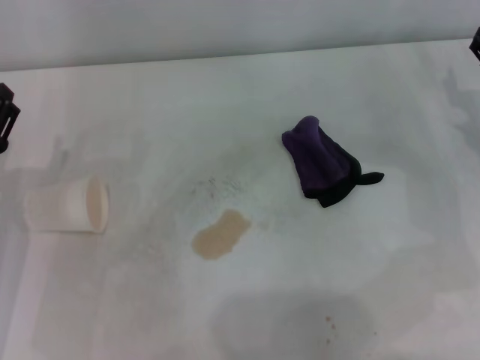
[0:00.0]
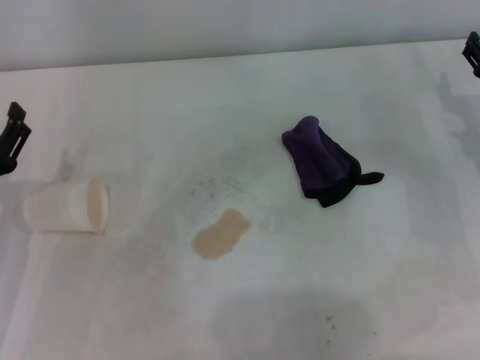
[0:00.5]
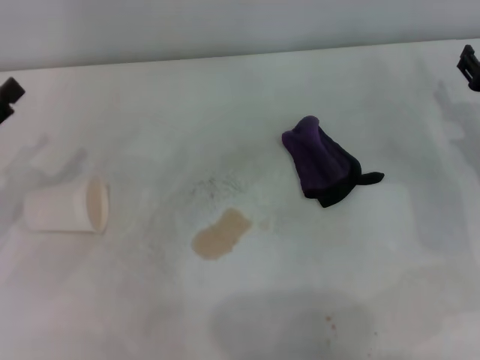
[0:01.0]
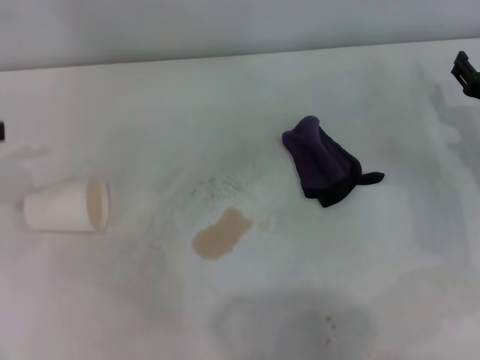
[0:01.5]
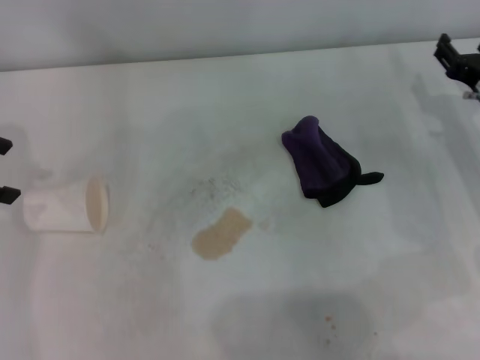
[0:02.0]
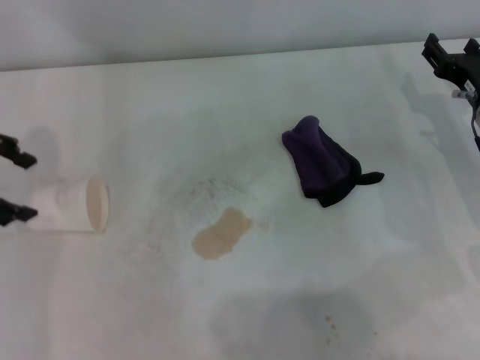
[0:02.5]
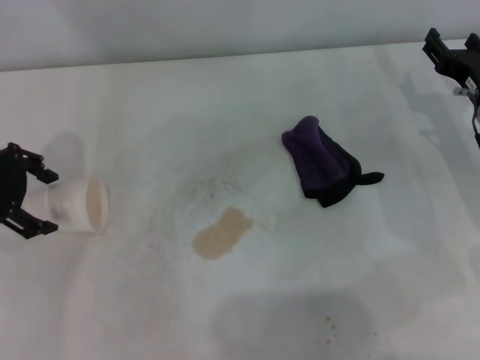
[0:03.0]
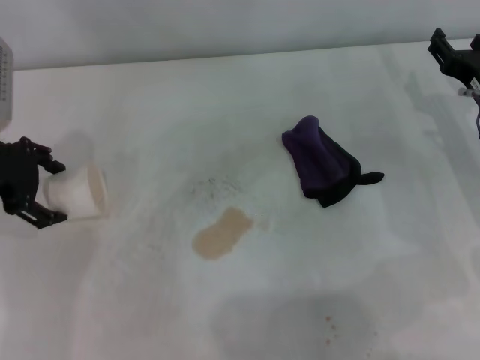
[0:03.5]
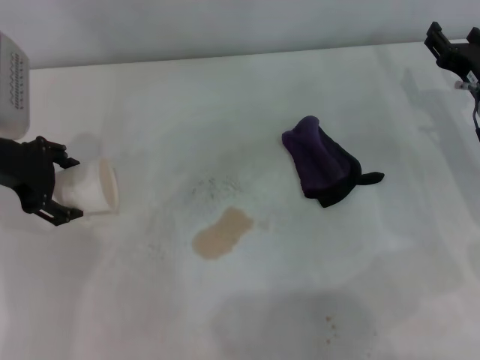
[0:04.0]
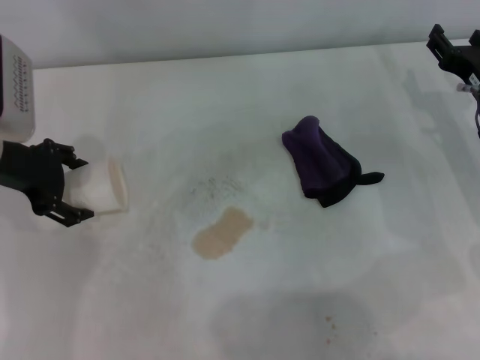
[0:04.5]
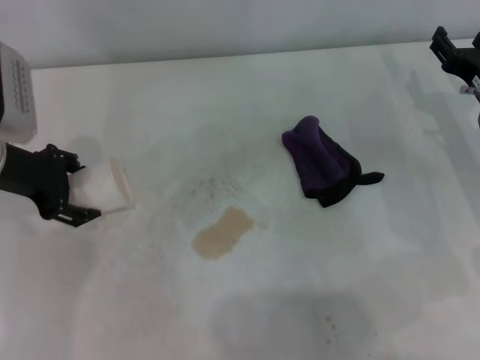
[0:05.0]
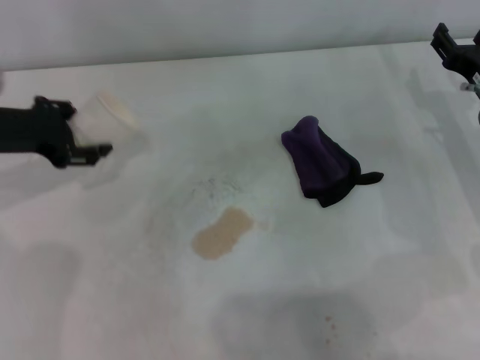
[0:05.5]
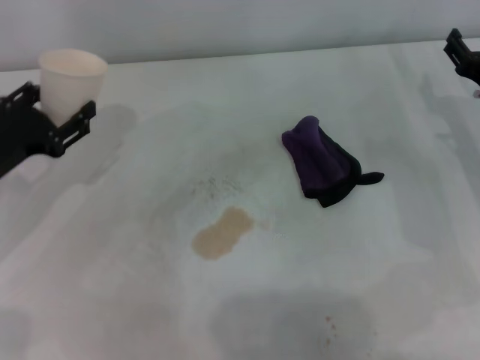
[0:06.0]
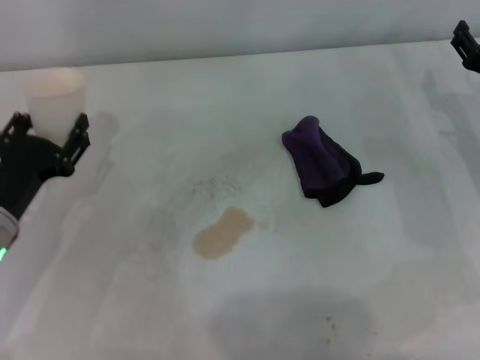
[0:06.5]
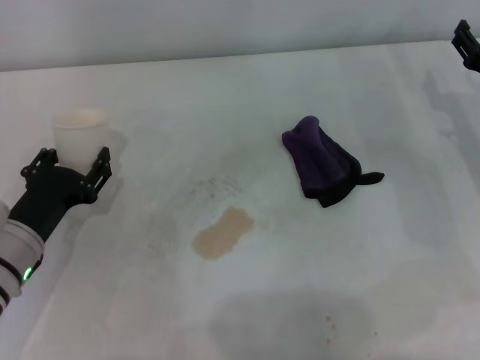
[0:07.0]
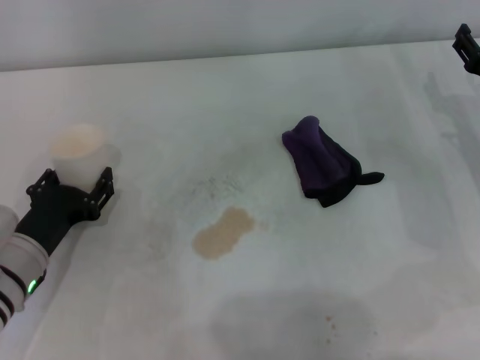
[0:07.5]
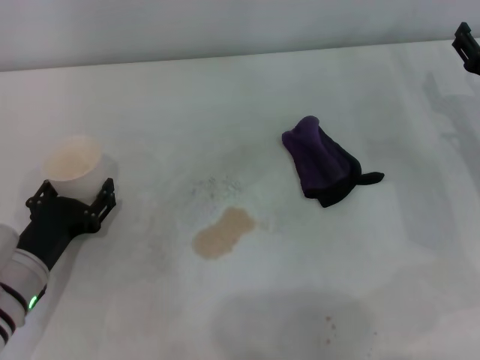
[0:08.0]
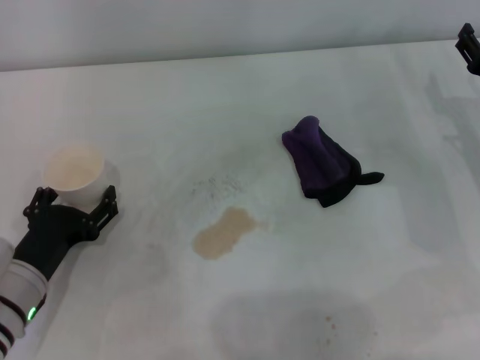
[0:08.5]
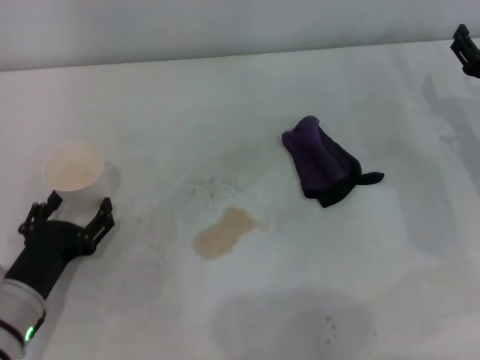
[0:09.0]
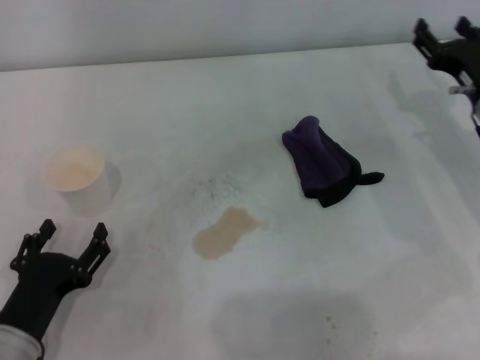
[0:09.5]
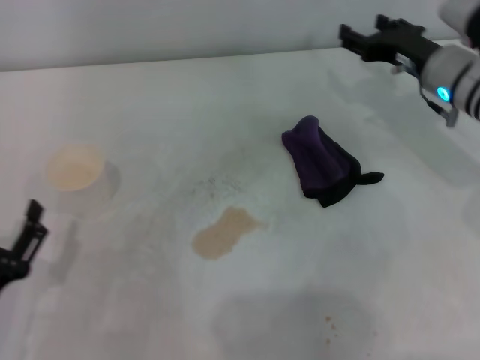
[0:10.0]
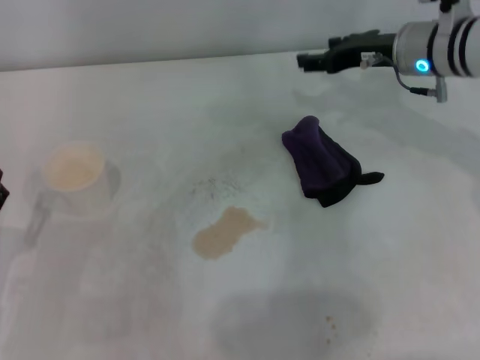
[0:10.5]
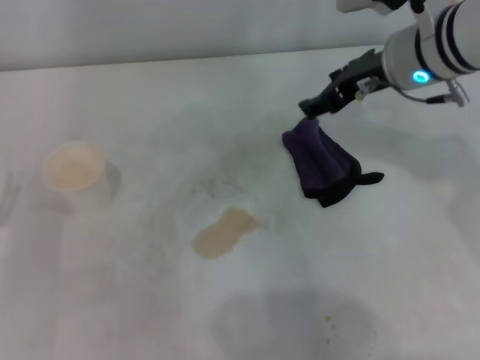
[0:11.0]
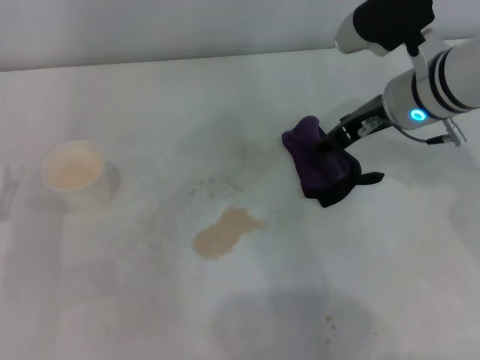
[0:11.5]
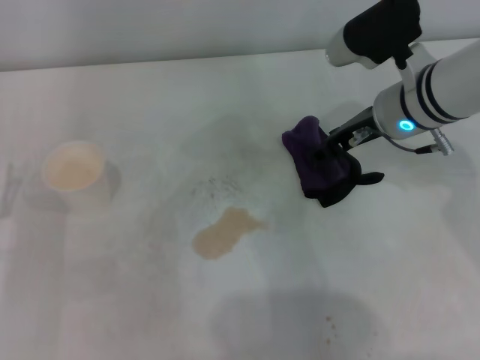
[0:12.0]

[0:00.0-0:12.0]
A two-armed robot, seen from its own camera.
Step, 0:00.0 to 0:04.5: Grasp the paper cup with the left gripper.
Step, 0:05.0 to 0:09.0: Stand the paper cup upright with the left gripper.
0:00.0 to 0:02.0: The left gripper travels upward, forward and to the left by about 20 cm.
0:02.0 to 0:04.0: The left gripper travels to the right and downward by approximately 10 cm.
0:04.0 to 0:06.0: The left gripper moves backward and downward, some 10 cm, and closes up.
0:06.0 to 0:08.0: The left gripper heads downward, backward and to the right, covering approximately 10 cm.
0:08.0 to 0:10.0: The left gripper travels backward by approximately 10 cm, and opens its fingers, while the right gripper heads forward and to the left, covering some 10 cm.
0:10.0 to 0:12.0: The right gripper is displaced to the left by roughly 5 cm; the left gripper shifts roughly 10 cm forward.

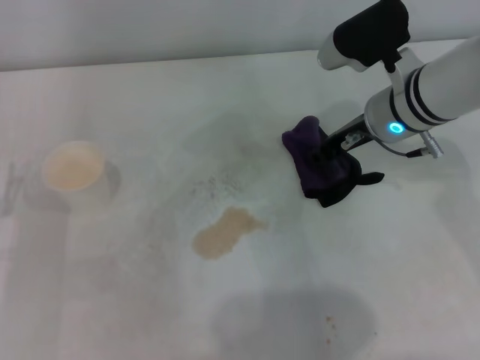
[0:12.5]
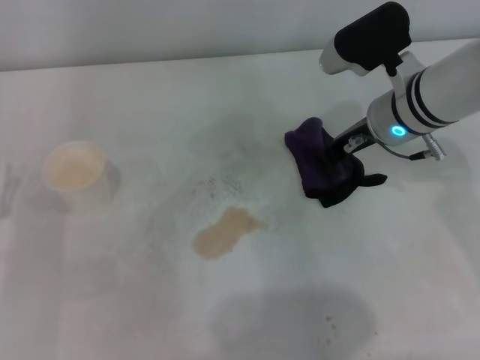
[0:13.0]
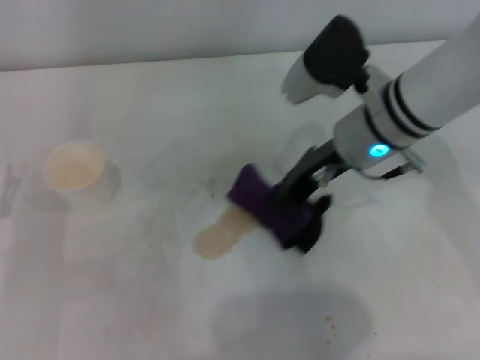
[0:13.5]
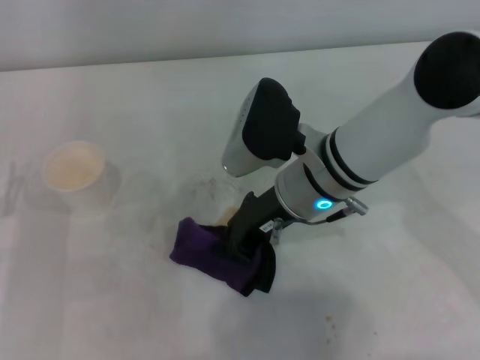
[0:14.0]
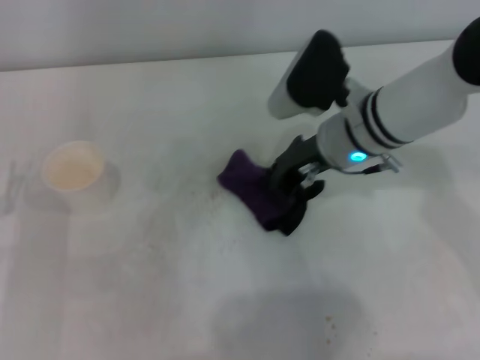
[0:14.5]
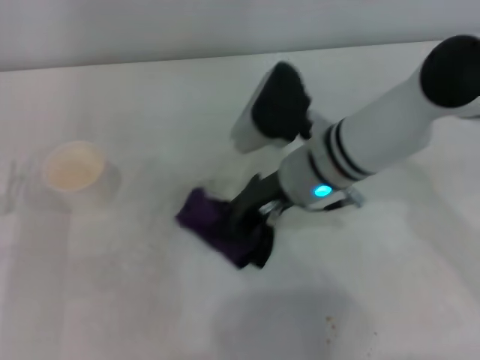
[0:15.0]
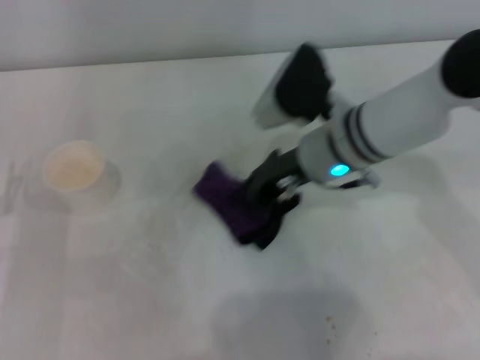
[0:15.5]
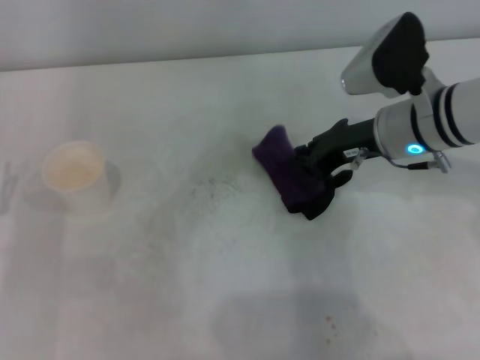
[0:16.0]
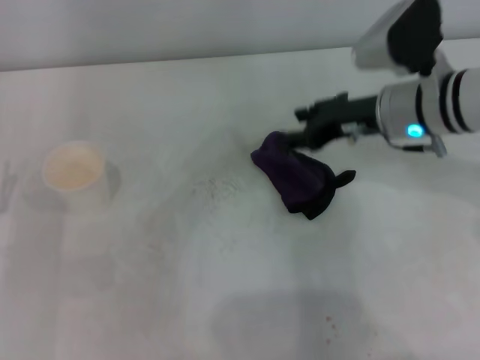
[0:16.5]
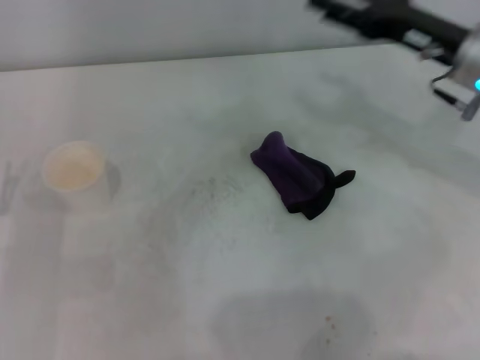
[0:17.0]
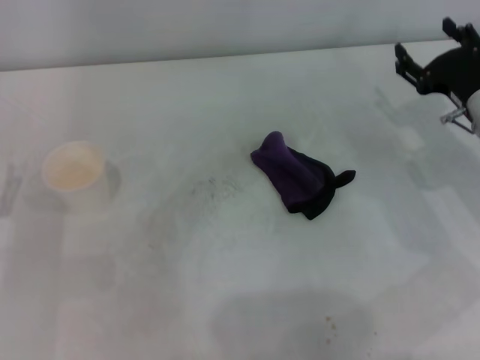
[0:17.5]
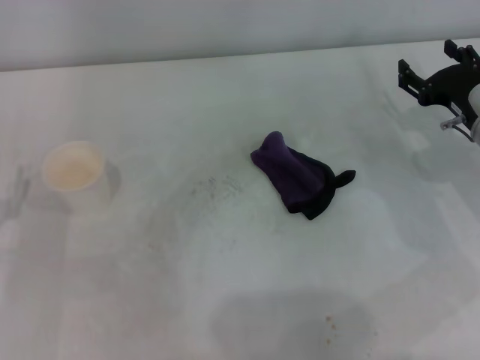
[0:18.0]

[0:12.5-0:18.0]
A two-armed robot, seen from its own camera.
Step, 0:13.0 to 0:15.5: Wipe the stains off the table with the right gripper.
0:12.5 to 0:14.5: The right gripper closes its fingers.
0:14.5 to 0:16.0: The right gripper shifts some 5 cm to the right.
0:16.0 to 0:18.0: The right gripper is displaced to the right and downward by about 10 cm, and opens up.

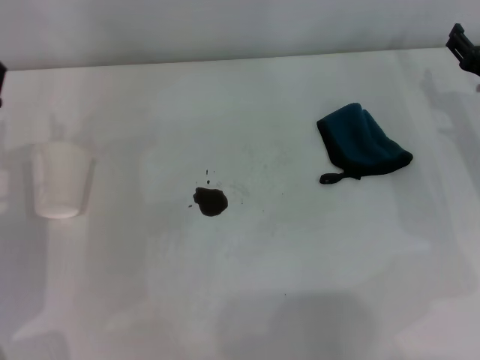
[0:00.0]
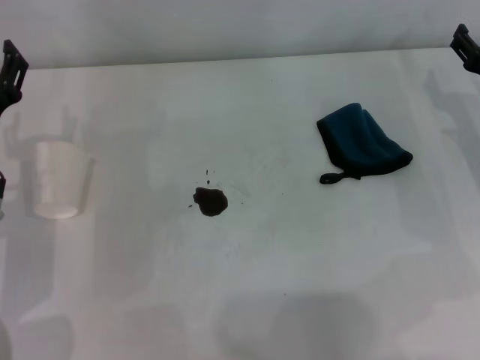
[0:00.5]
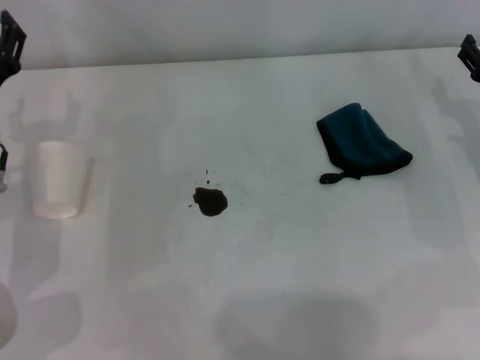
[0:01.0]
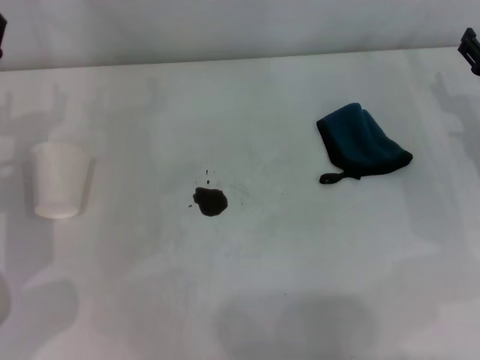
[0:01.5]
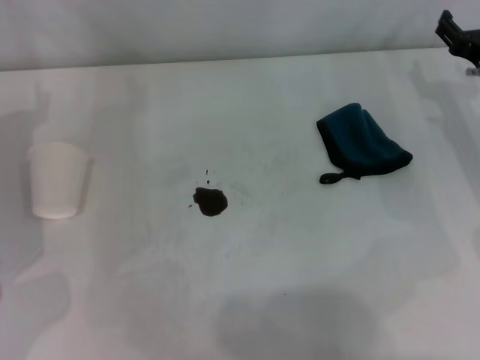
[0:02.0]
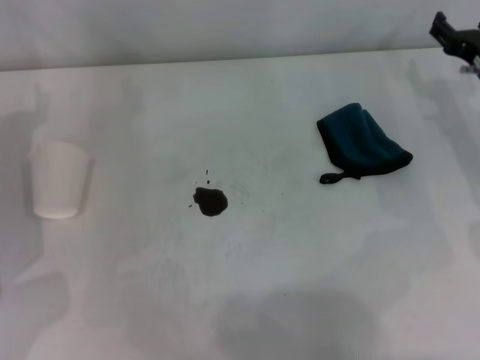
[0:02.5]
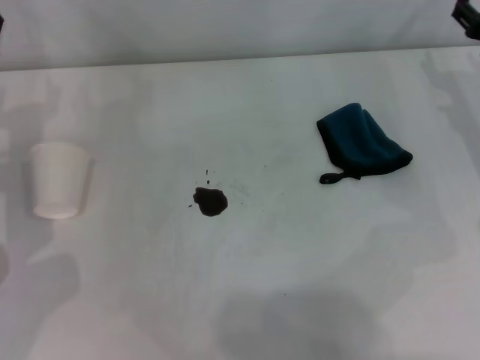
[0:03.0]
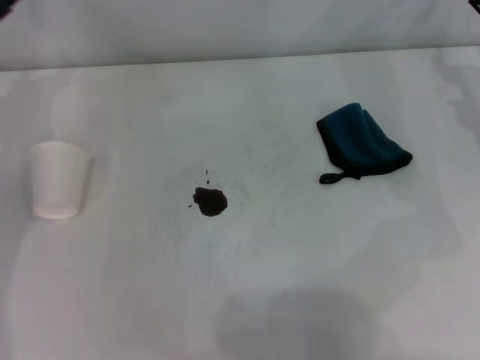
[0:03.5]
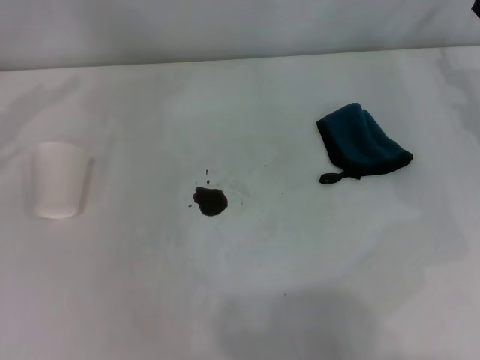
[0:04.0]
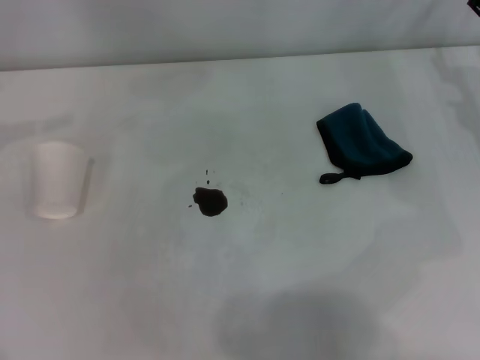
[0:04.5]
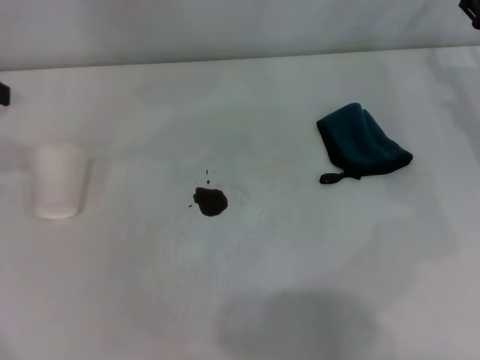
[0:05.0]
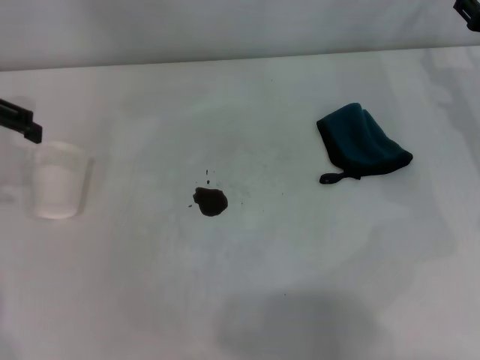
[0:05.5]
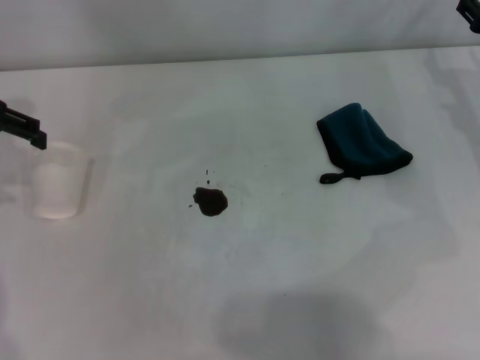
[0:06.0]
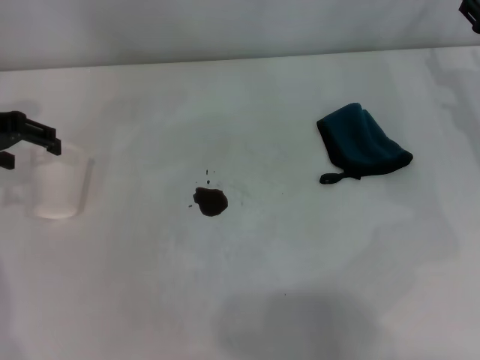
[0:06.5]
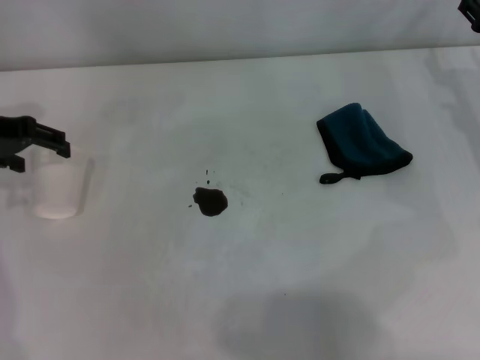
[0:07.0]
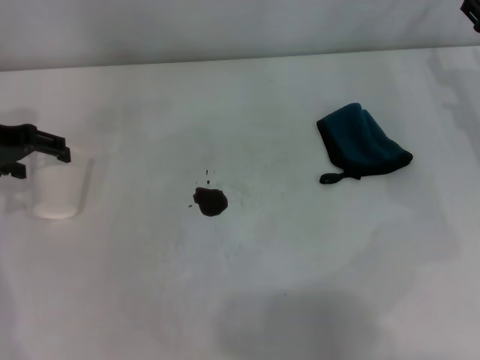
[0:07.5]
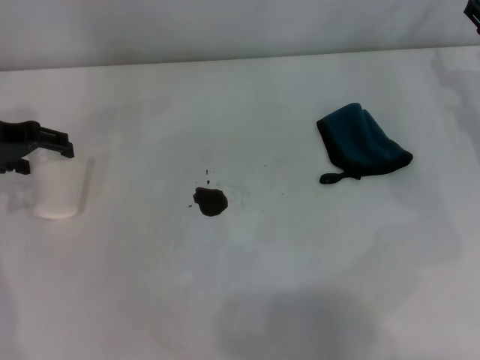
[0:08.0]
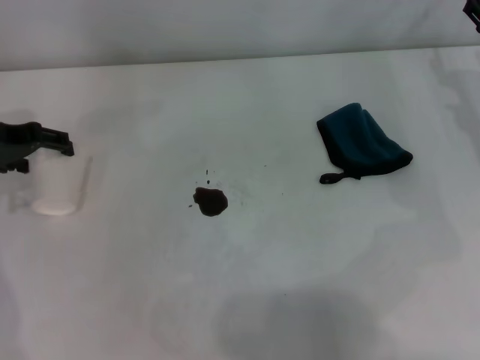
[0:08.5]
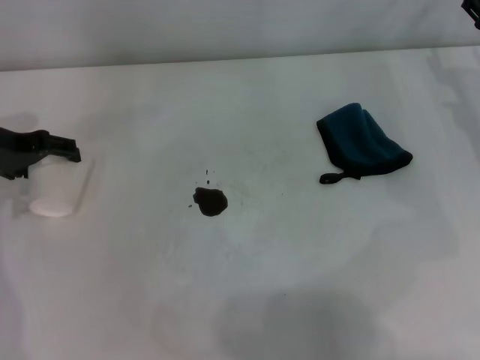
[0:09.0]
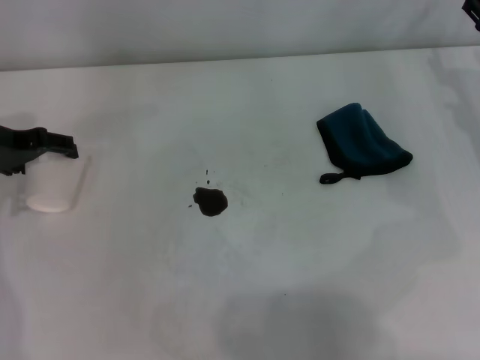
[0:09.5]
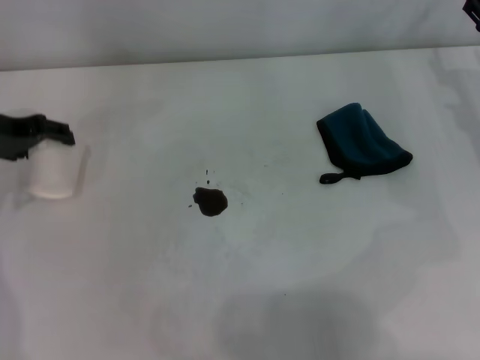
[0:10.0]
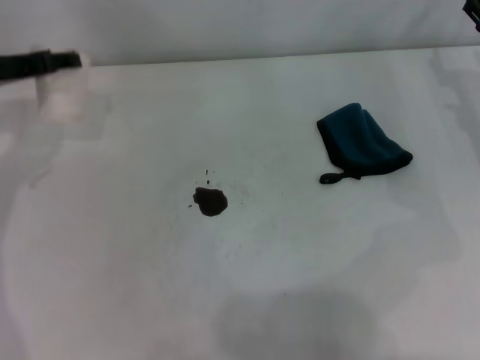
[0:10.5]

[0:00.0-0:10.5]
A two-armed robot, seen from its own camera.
Step, 0:00.0 to 0:09.0: Grasp the paper cup with the left gripper.
0:00.0 to 0:02.0: The left gripper travels forward by some 5 cm.
0:02.0 to 0:04.0: The left gripper travels upward, to the left and forward by some 15 cm.
0:04.0 to 0:06.5: The left gripper travels upward and back again, roughly 10 cm each way.
0:06.5 to 0:08.5: There are only small adjustments of the grippers.
0:08.5 to 0:10.5: The left gripper closes up.
